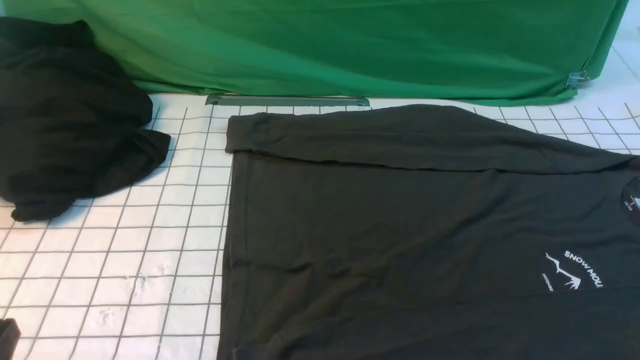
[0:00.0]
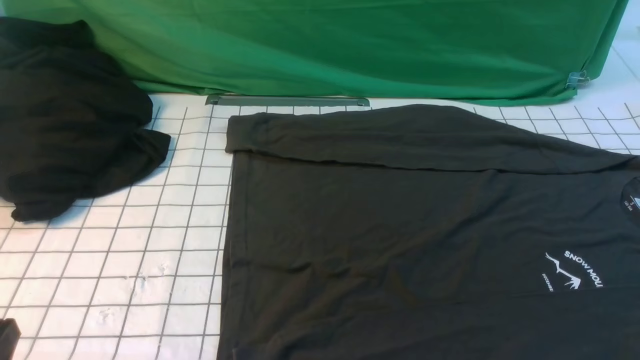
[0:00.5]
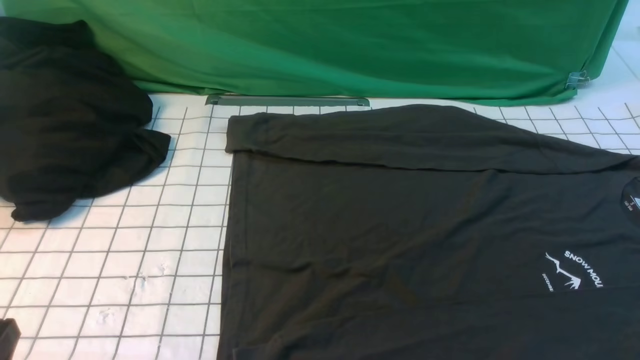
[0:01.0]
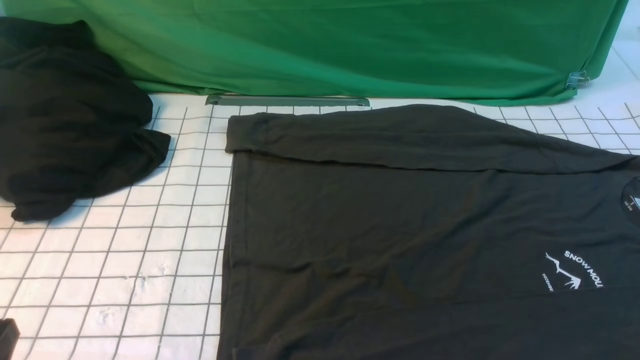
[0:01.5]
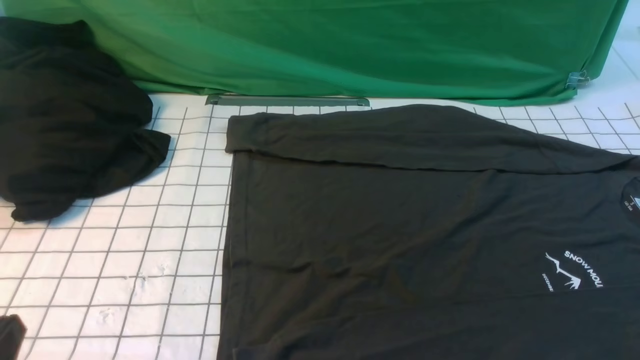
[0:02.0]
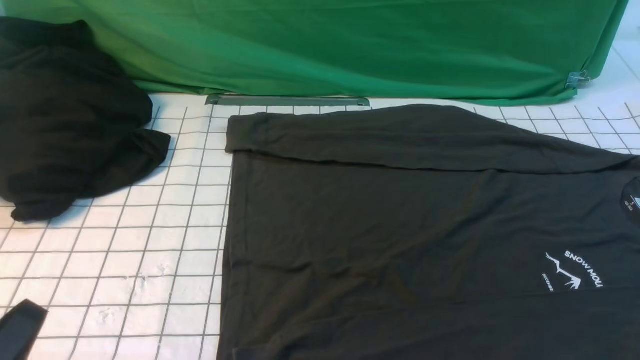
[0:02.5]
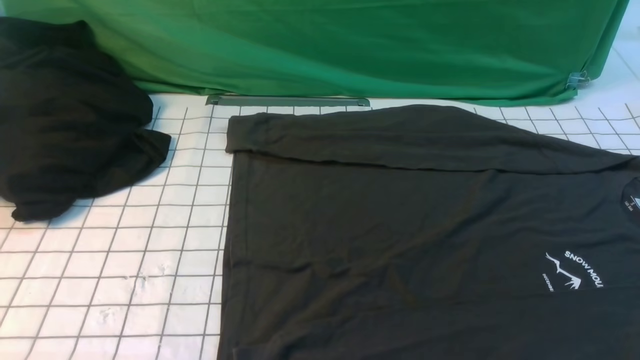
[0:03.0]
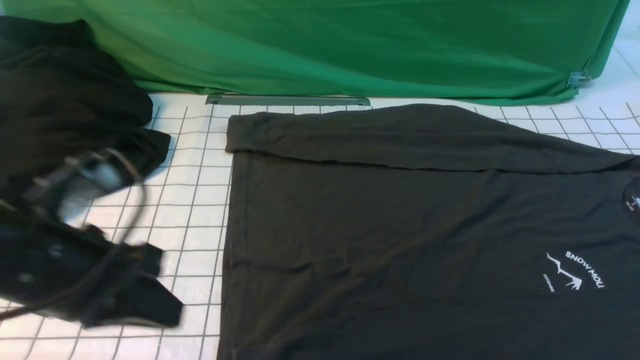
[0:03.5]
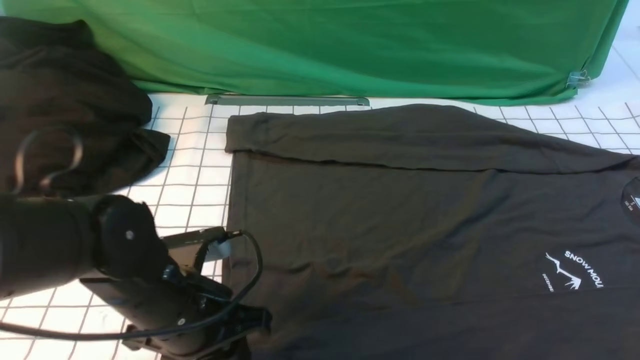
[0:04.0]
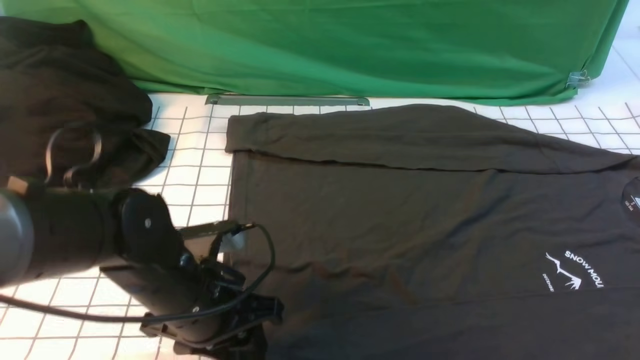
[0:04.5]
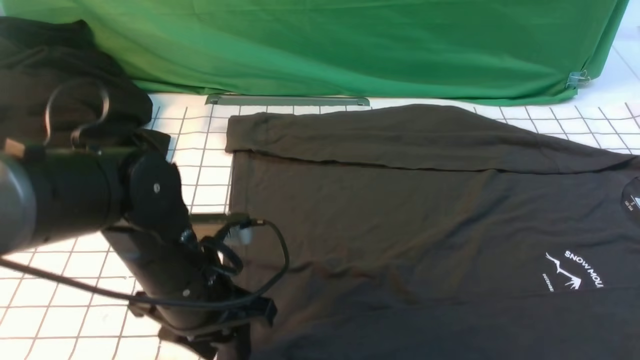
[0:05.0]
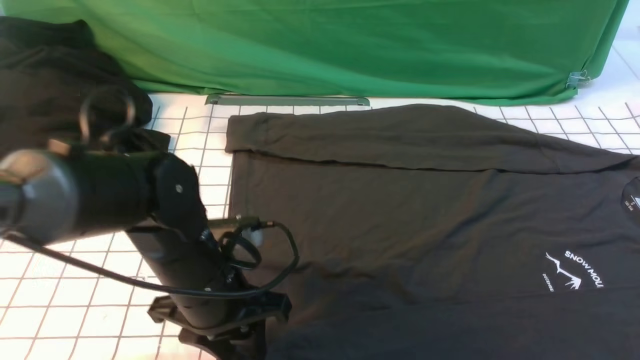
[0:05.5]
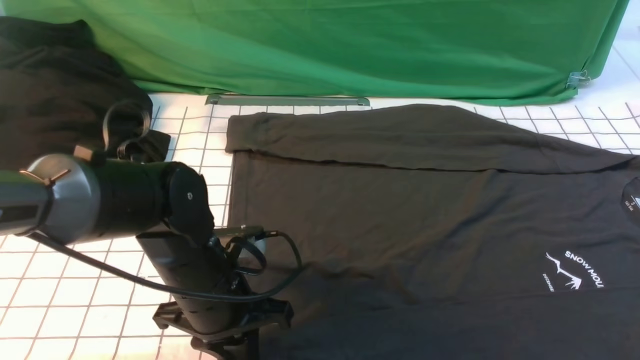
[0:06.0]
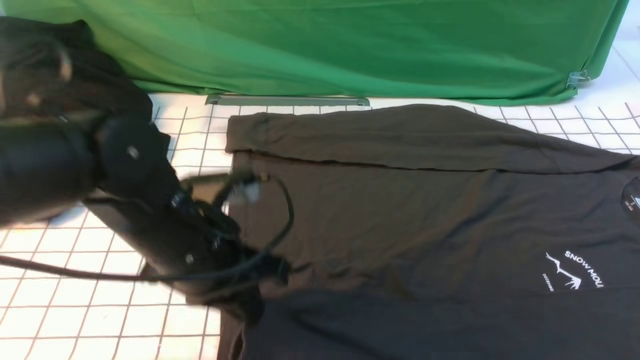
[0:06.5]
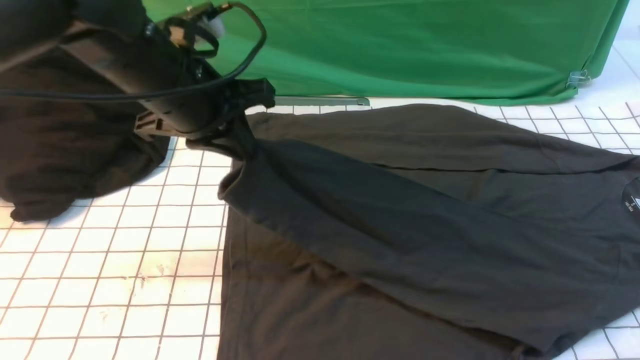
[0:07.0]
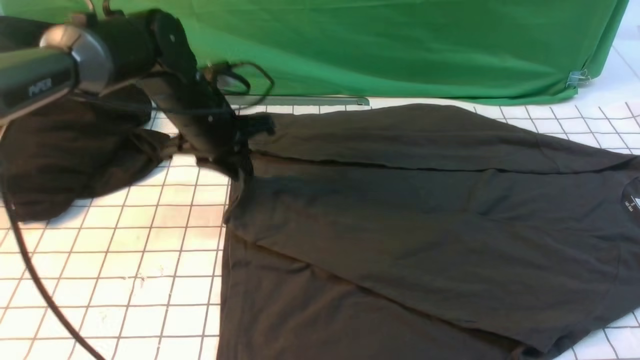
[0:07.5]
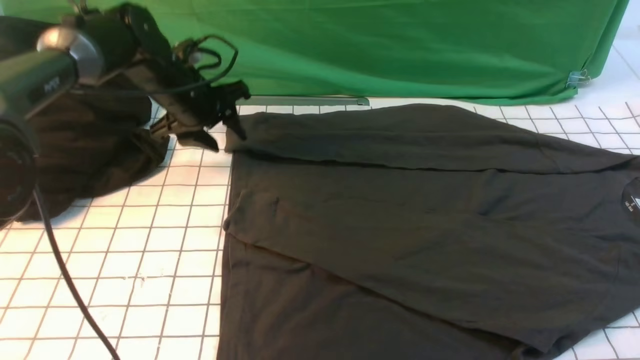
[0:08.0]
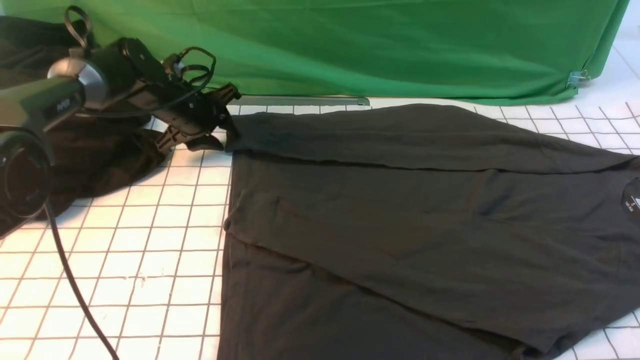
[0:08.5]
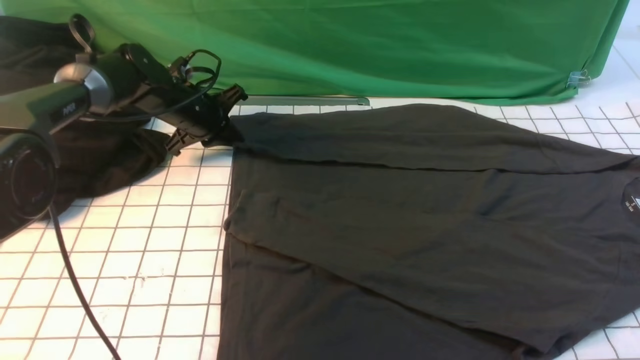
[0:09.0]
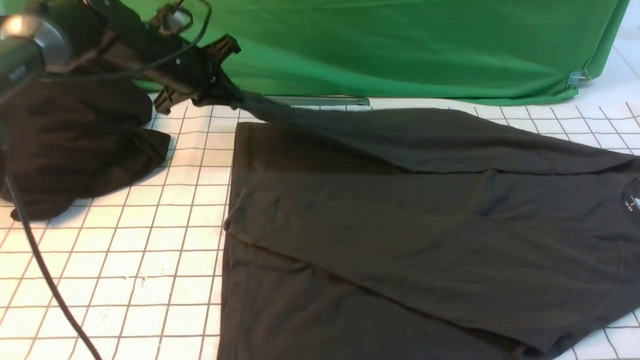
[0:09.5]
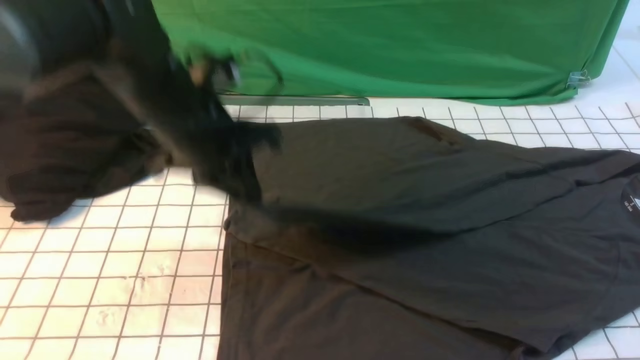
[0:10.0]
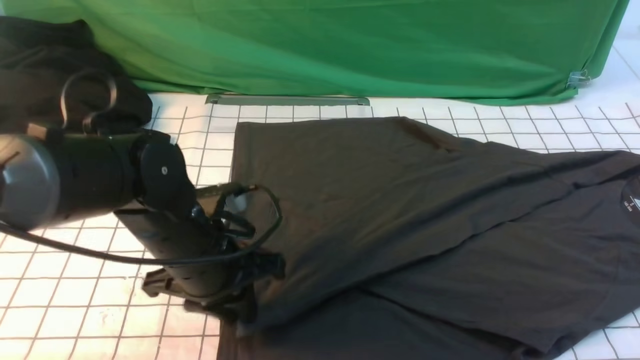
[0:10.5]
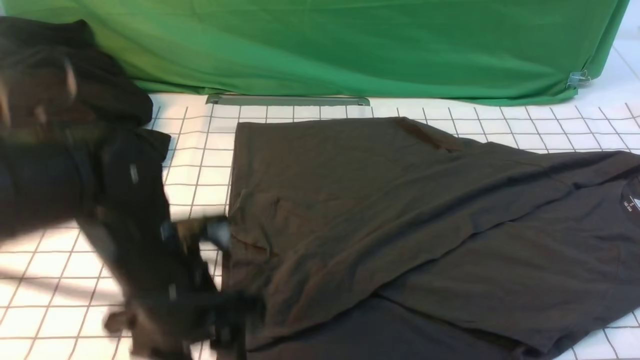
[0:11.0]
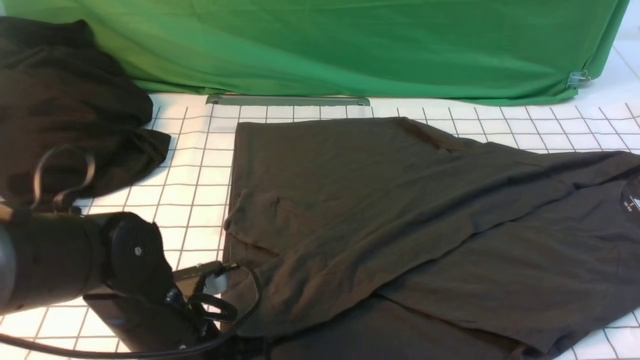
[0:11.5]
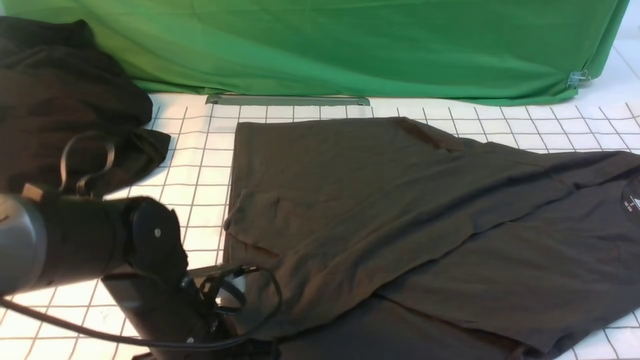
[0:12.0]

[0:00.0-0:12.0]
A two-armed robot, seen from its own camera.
Step, 0:00.0 to 0:06.0: use the left arm to clamp the cuff closest to it.
Step, 0:06.5 to 0:07.5: use the left arm to drag and place the cuff at the centered position on the left edge of the fabric.
Step, 0:08.0 to 0:09.0: use the left arm to clamp the cuff farthest from it.
Step, 0:09.5 to 0:10.5: use the left arm to drag and drop the cuff onto the cuff closest to the left arm.
0:02.0 to 0:04.0: The right gripper is displaced upward and forward by about 10 cm, and closes, while the left gripper goes some 20 cm forward and to the right, and opens its fingers.
0:04.0 to 0:06.0: The grippers stay close to where they were, moving slightly.
0:06.0 to 0:08.0: The left gripper shifts about 25 cm forward, and opens.
0:08.0 to 0:10.0: The left gripper goes approximately 20 cm backward, to the right and upward, and closes.
0:10.0 to 0:12.0: The left gripper heads backward and downward, covering some 15 cm, and opens, then closes once more.

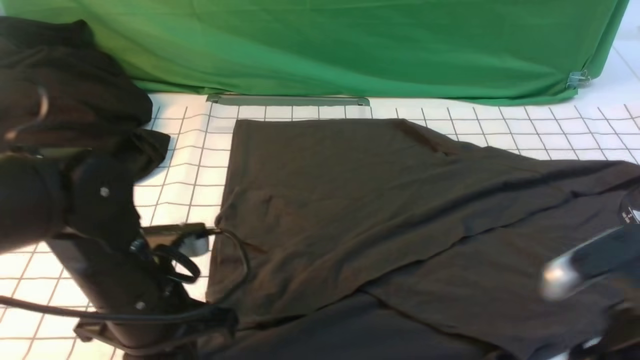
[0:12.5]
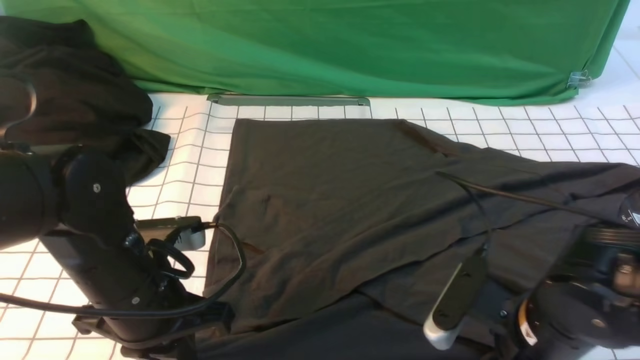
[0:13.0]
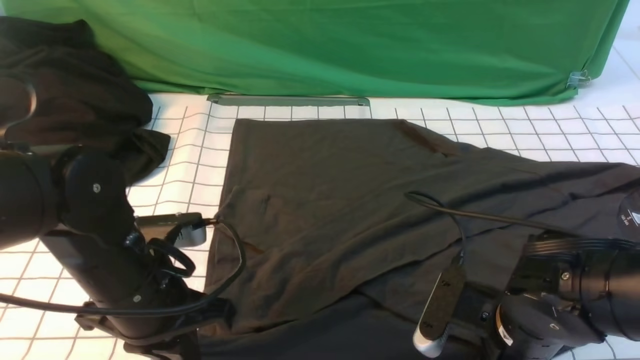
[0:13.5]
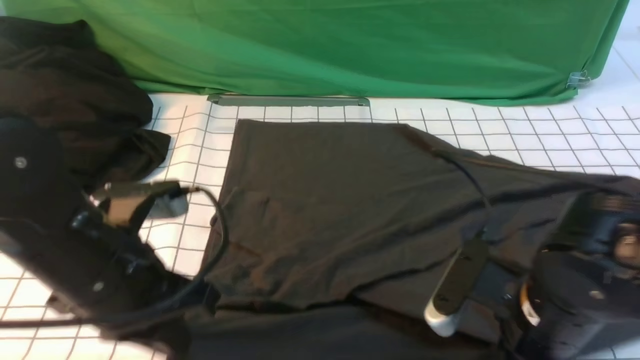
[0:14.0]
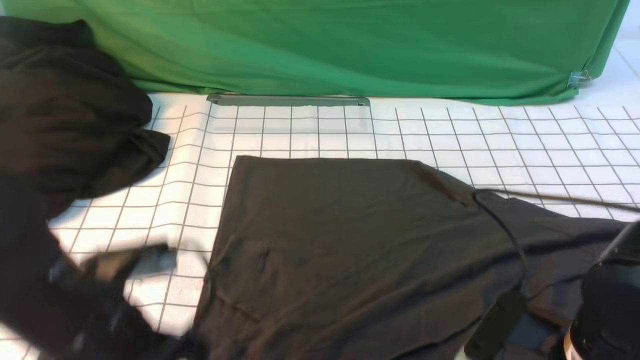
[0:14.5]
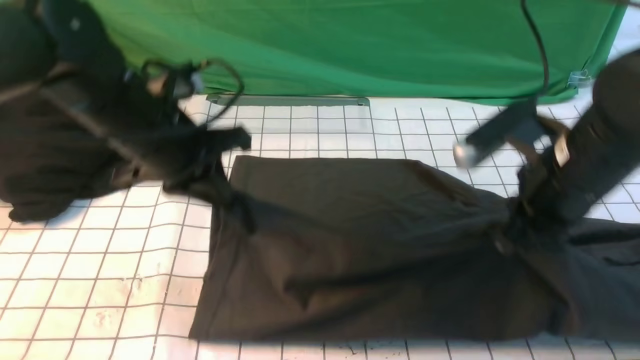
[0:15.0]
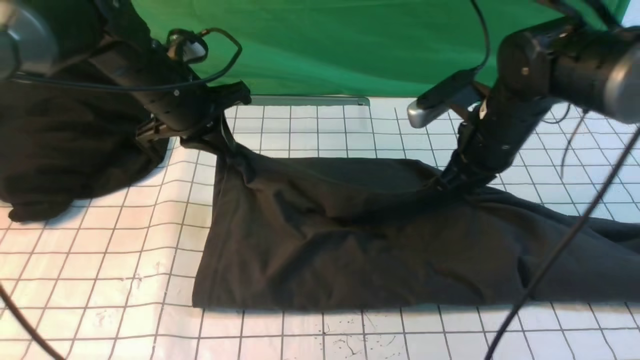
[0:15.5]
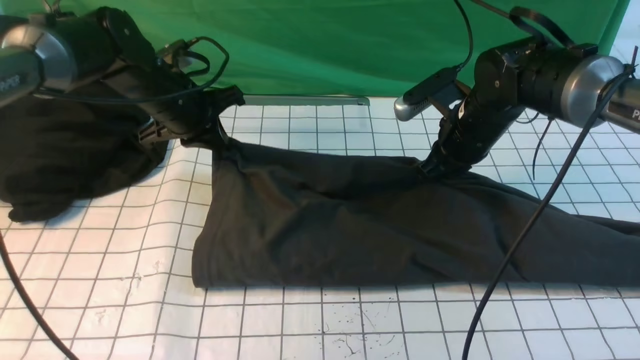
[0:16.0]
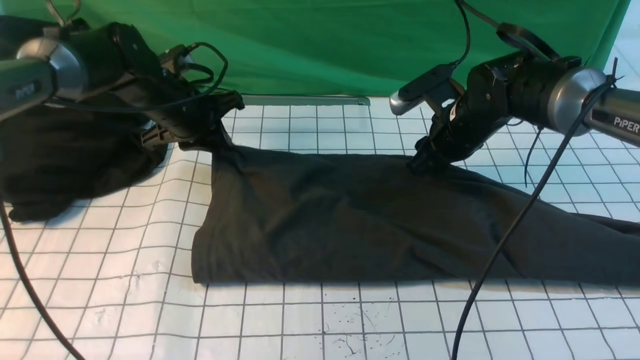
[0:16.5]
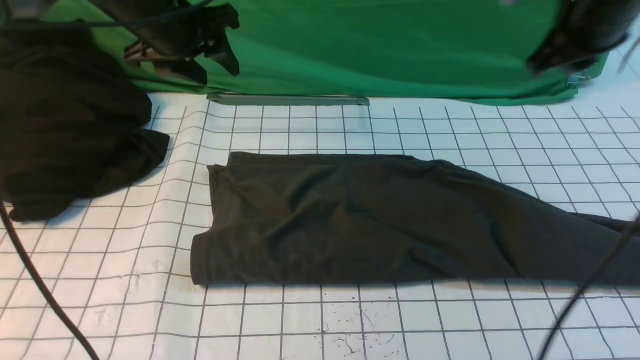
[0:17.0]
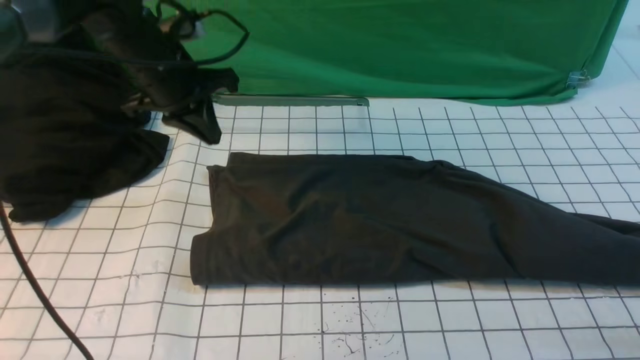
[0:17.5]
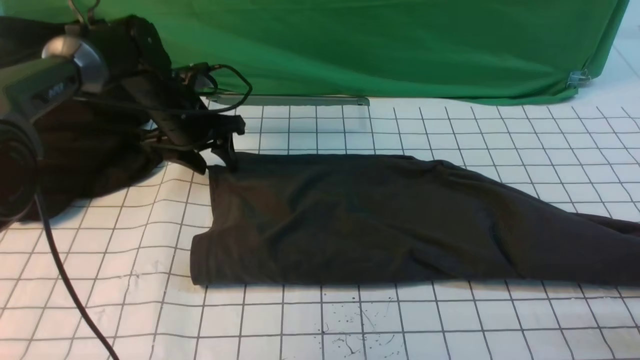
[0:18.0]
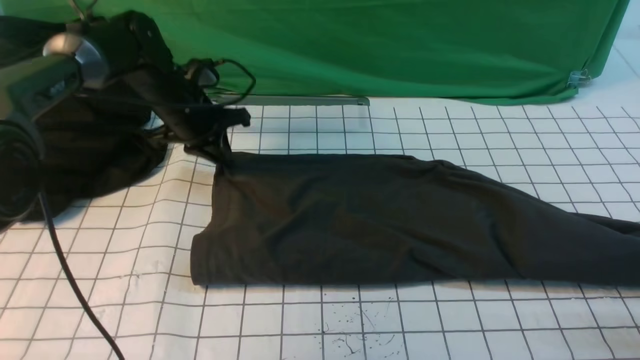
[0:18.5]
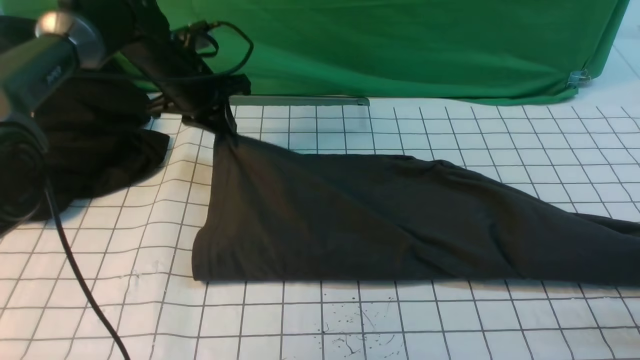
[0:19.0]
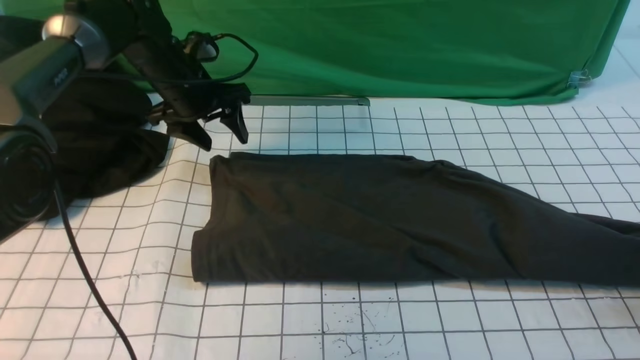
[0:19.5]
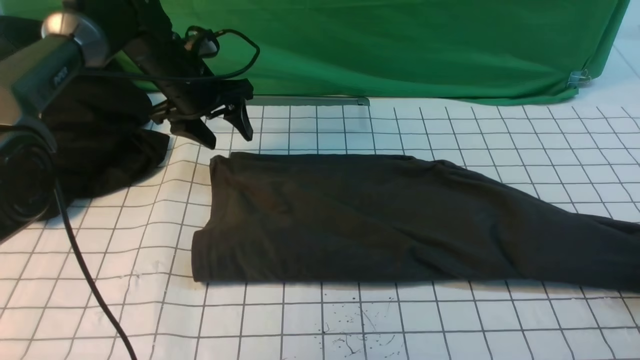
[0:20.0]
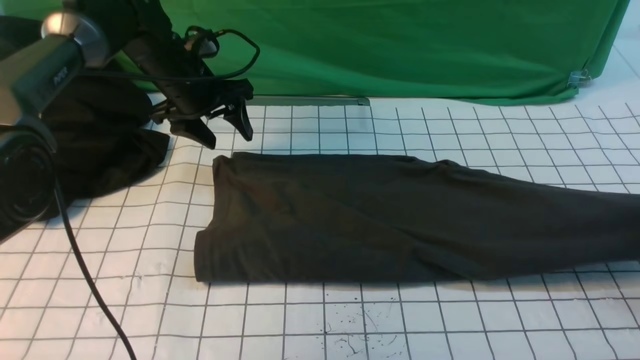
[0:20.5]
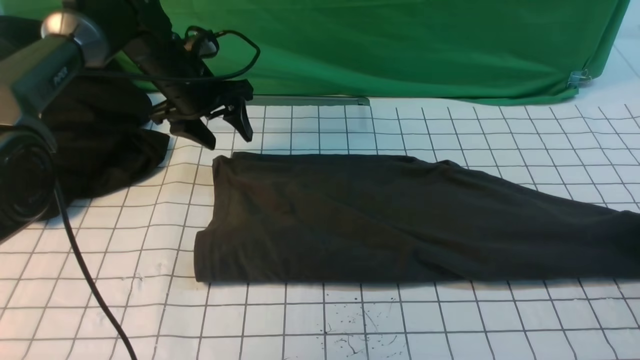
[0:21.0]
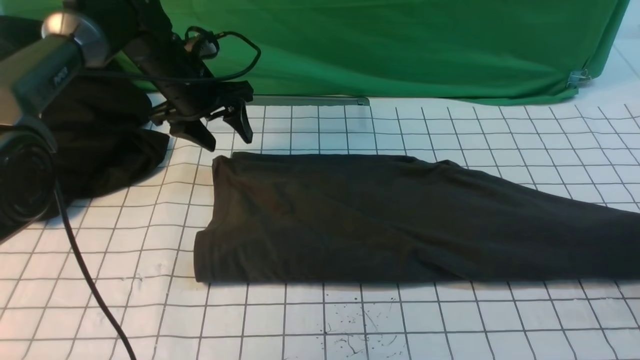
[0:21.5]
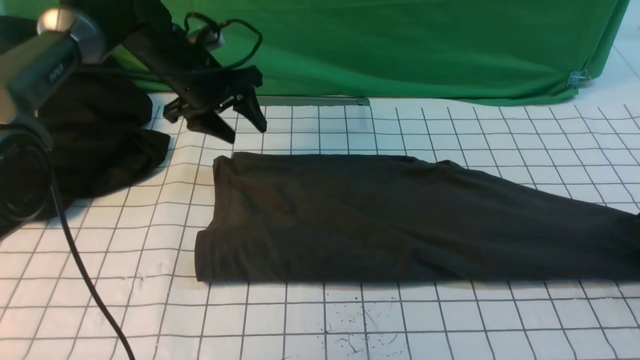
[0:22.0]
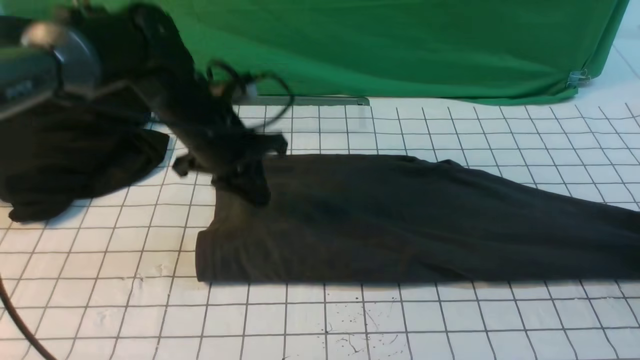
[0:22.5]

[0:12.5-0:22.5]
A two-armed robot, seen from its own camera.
Step, 0:14.0 to 0:16.5: use both arms to drag the lower edge of the fabric forward and fold it over the upper edge.
0:12.5 to 0:14.5: The left gripper ends up about 5 cm from where it was, while the right gripper heads to the left, covering roughly 5 cm, moves about 10 cm downward and comes back, and closes its fingers.
0:14.5 to 0:16.5: The grippers both shift forward by approximately 30 cm. The right gripper opens up. The left gripper opens up.
0:16.5 to 0:18.5: The left gripper reaches approximately 10 cm upward, then returns. The right gripper is displaced to the right and backward by about 30 cm.
0:18.5 to 0:20.5: The right gripper shifts by about 5 cm, and opens, then closes once more. The left gripper opens up.
0:20.5 to 0:22.5: The left gripper heads backward, covering some 10 cm, and closes its fingers. Meanwhile the right gripper goes some 5 cm downward, and opens, then closes again.
